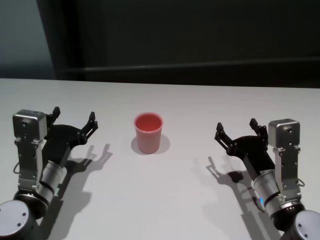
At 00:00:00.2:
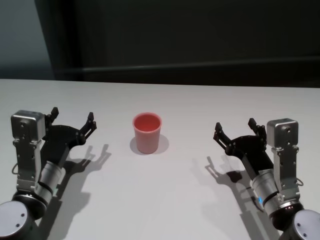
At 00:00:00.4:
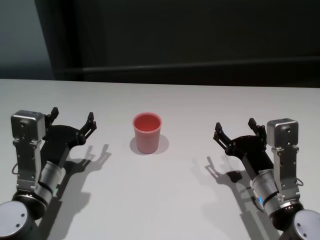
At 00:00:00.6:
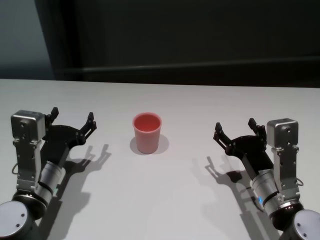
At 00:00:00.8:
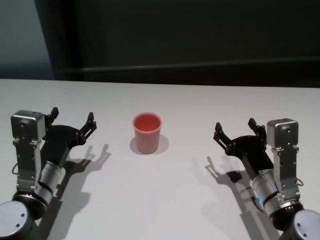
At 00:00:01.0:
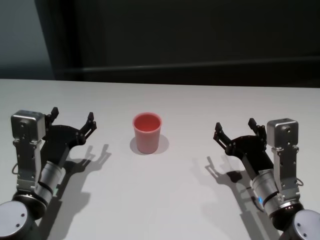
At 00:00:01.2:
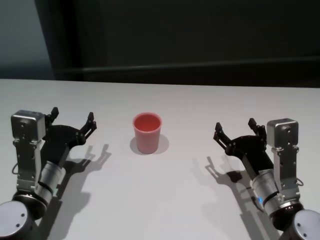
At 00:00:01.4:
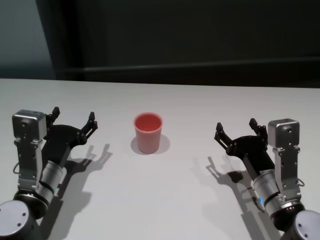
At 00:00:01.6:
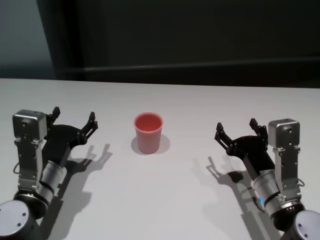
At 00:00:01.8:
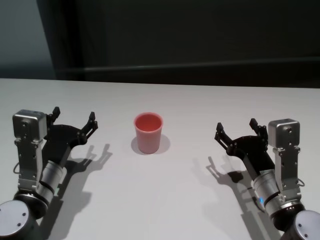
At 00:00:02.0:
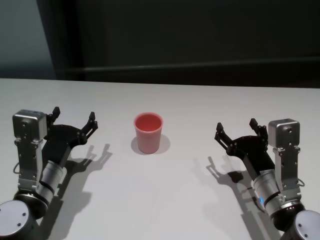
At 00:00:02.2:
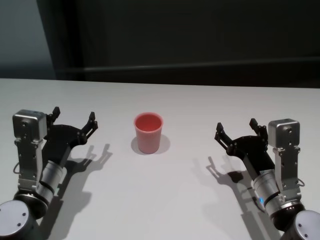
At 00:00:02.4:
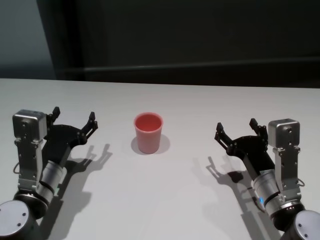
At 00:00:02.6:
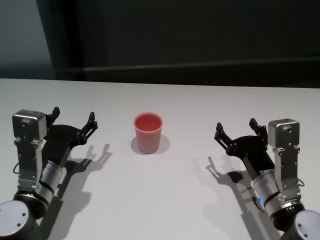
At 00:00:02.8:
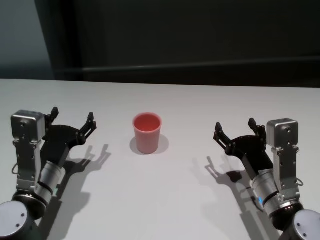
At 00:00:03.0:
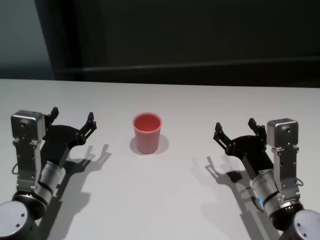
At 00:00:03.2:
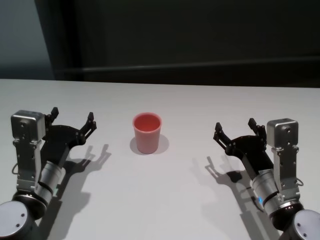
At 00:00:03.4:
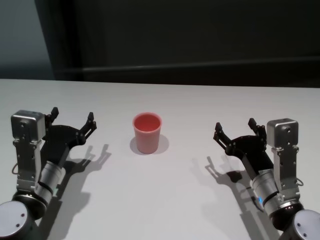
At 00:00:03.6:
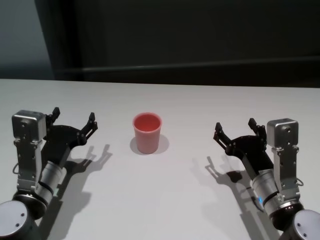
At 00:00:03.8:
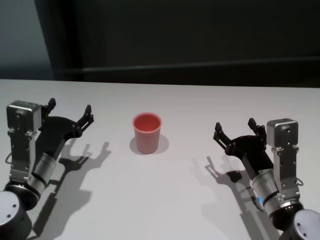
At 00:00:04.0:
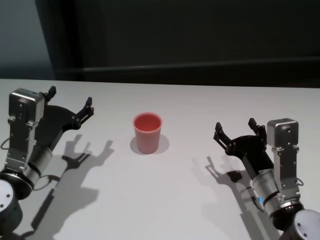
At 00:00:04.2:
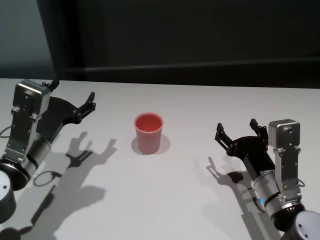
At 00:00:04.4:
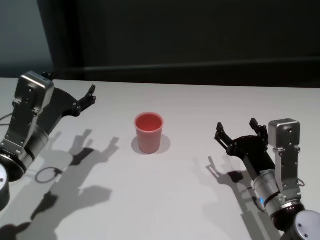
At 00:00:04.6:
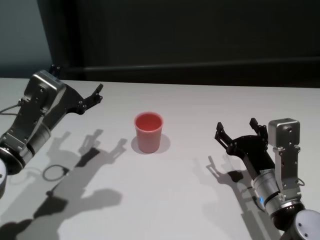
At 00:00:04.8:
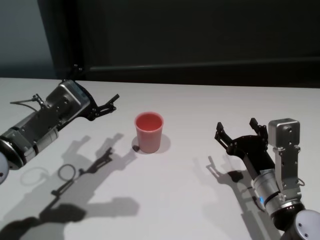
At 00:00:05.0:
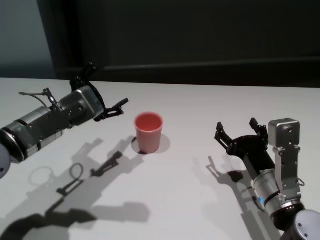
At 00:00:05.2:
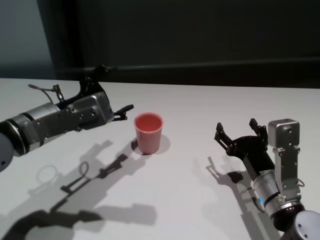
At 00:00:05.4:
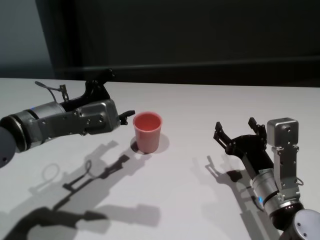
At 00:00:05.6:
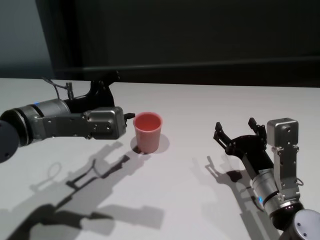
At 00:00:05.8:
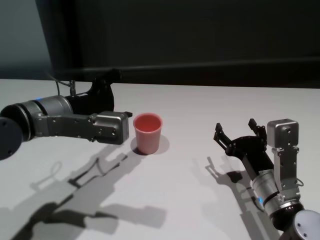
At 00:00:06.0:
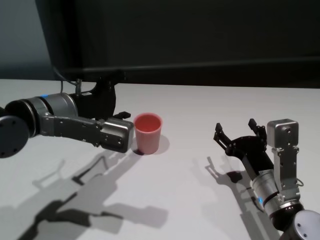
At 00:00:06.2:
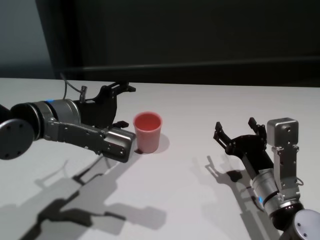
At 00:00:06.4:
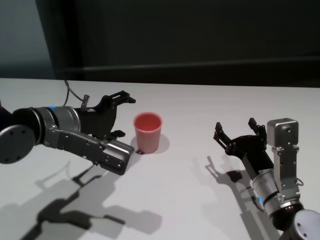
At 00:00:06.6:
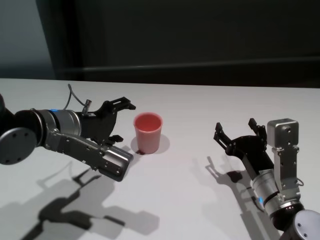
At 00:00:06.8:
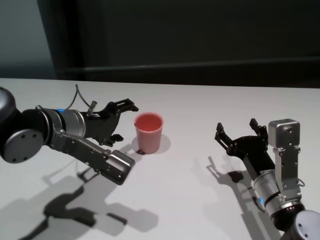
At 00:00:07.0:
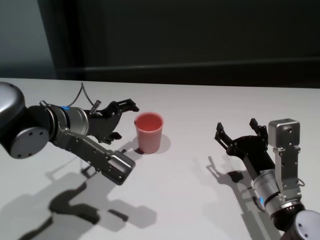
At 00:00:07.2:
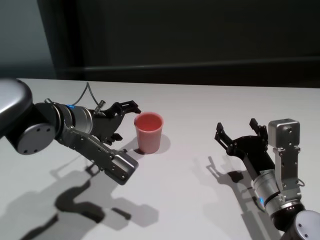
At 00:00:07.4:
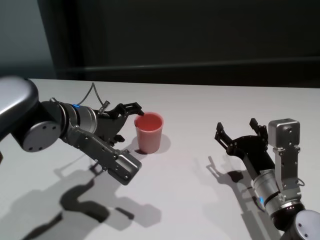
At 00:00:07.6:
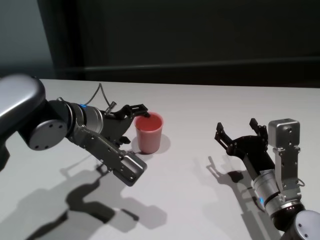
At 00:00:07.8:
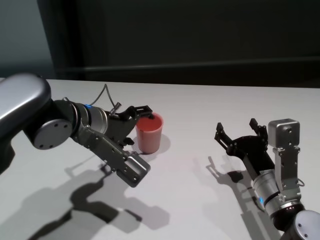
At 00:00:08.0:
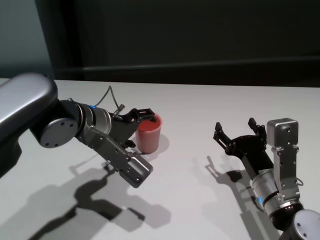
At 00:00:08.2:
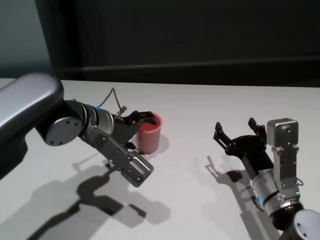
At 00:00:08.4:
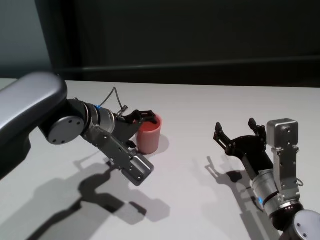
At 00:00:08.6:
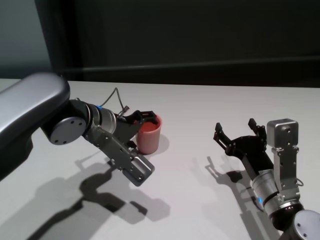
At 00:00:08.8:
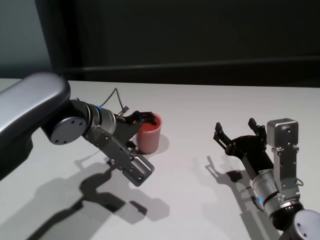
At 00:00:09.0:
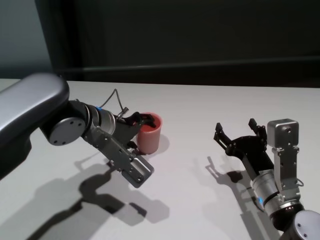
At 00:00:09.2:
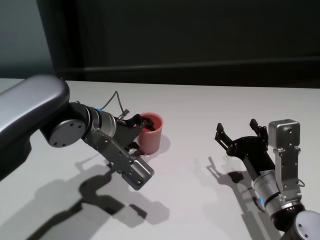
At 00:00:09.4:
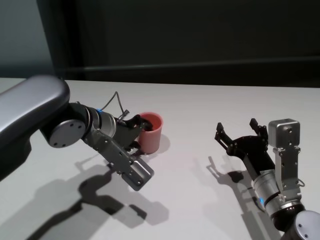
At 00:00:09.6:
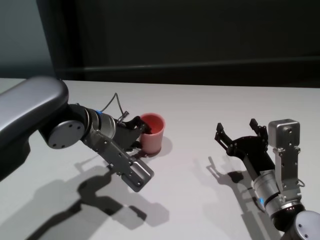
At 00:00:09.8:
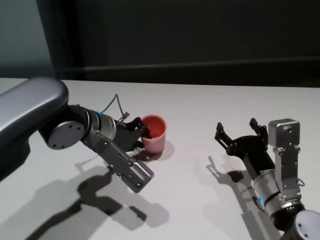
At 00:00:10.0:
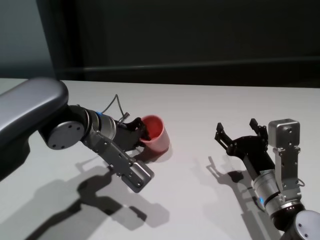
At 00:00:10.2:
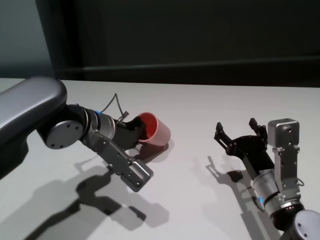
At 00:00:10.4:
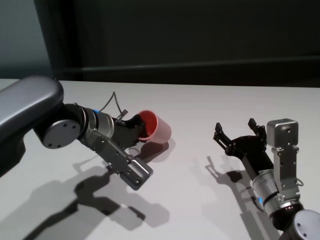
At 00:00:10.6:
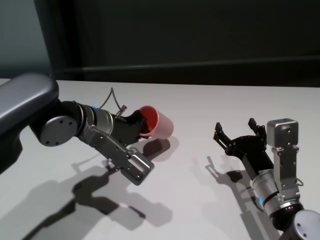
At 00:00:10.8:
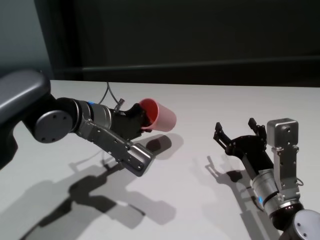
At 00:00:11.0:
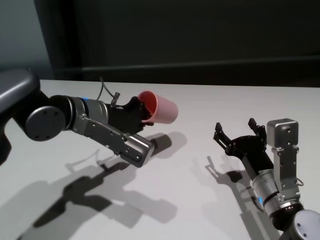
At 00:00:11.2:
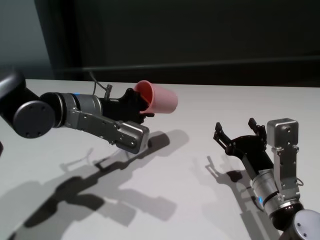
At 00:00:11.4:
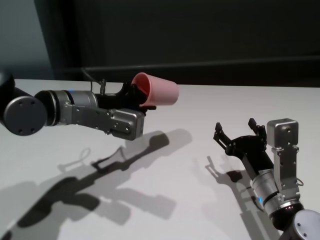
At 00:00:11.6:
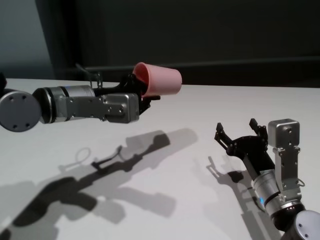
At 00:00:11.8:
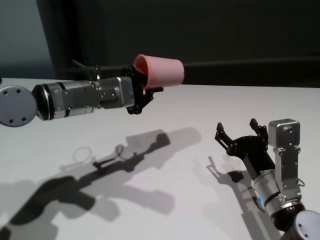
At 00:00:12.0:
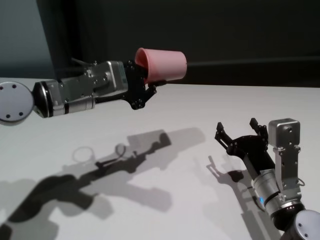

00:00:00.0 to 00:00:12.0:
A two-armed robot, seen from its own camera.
Task of the whole recording: On the white table pick up the cup with one hand and transfer it to the other hand before turning it over.
Step, 00:00:00.0 to 00:00:09.8: Grasp the cup with left gripper.

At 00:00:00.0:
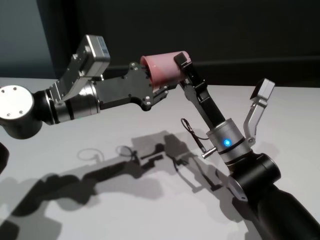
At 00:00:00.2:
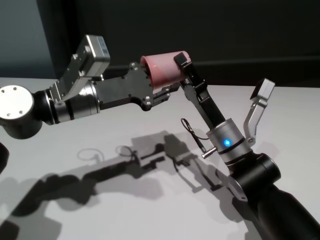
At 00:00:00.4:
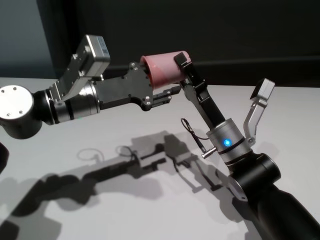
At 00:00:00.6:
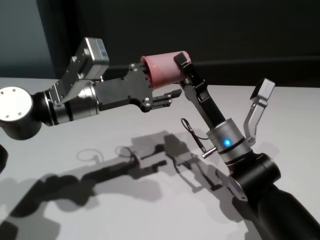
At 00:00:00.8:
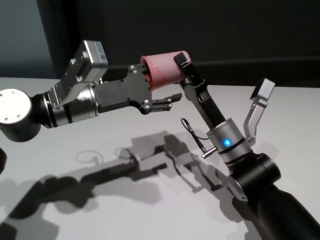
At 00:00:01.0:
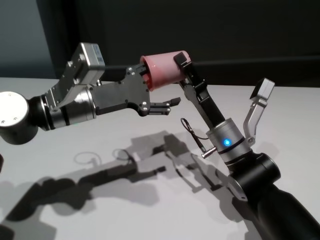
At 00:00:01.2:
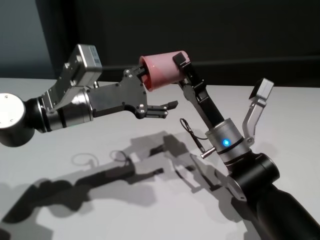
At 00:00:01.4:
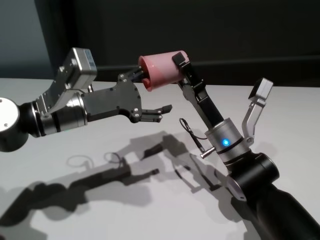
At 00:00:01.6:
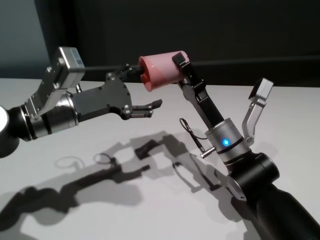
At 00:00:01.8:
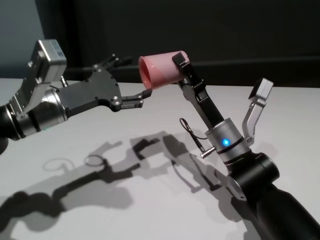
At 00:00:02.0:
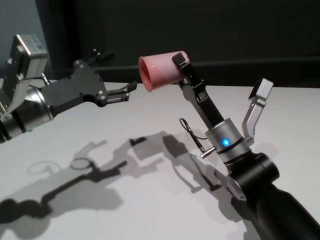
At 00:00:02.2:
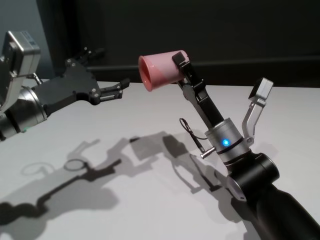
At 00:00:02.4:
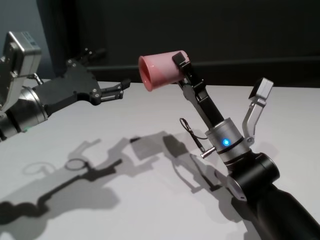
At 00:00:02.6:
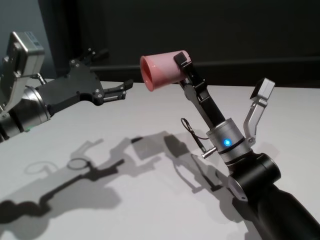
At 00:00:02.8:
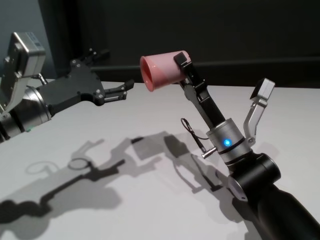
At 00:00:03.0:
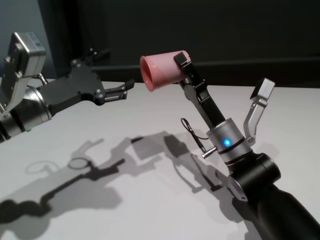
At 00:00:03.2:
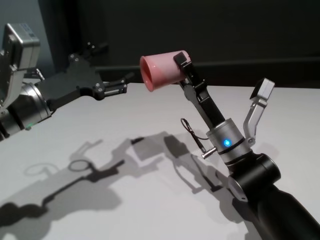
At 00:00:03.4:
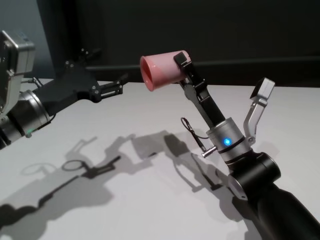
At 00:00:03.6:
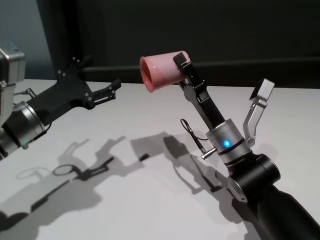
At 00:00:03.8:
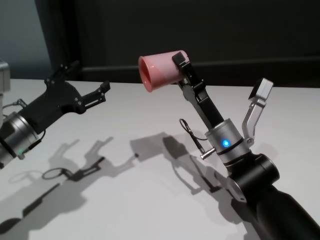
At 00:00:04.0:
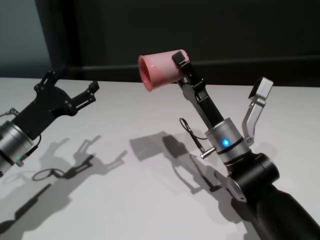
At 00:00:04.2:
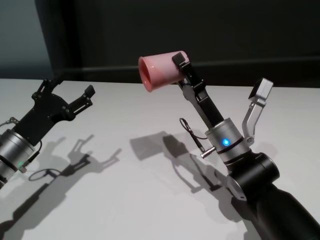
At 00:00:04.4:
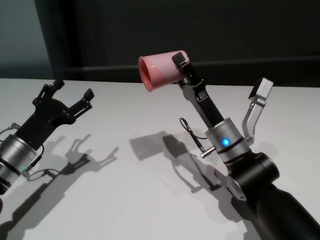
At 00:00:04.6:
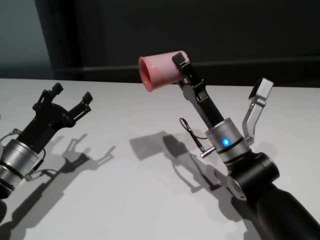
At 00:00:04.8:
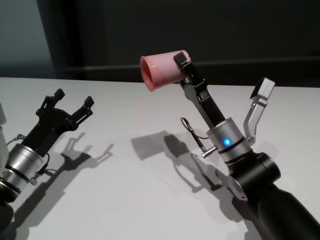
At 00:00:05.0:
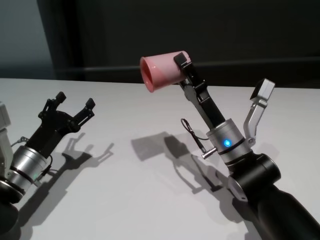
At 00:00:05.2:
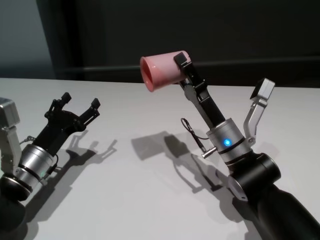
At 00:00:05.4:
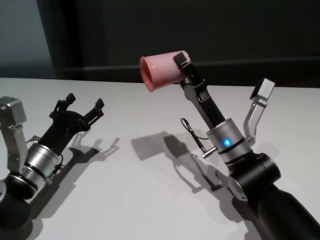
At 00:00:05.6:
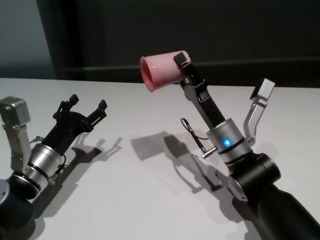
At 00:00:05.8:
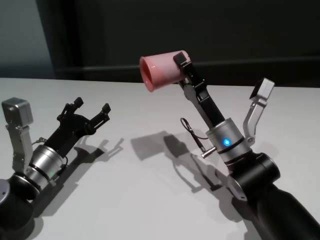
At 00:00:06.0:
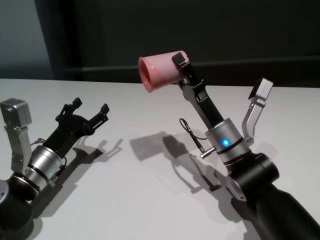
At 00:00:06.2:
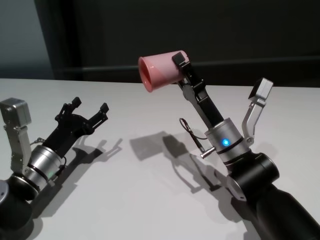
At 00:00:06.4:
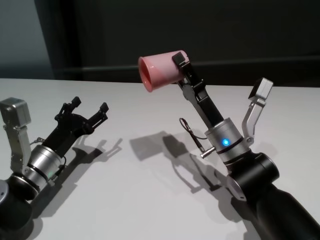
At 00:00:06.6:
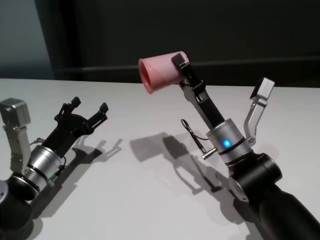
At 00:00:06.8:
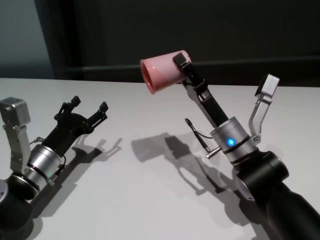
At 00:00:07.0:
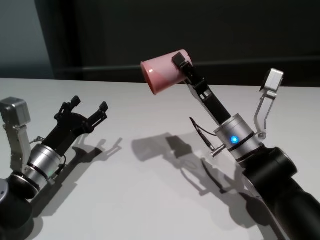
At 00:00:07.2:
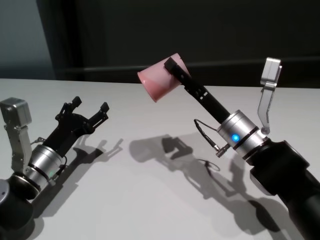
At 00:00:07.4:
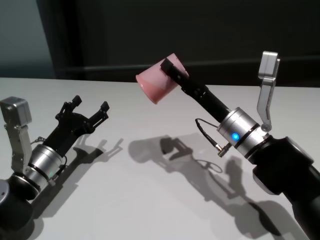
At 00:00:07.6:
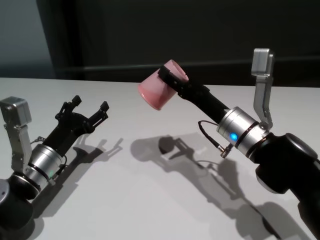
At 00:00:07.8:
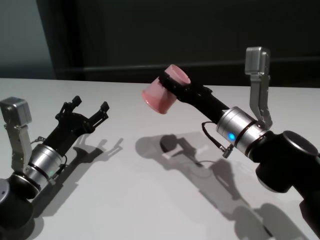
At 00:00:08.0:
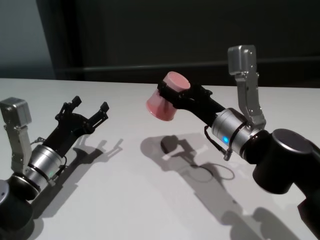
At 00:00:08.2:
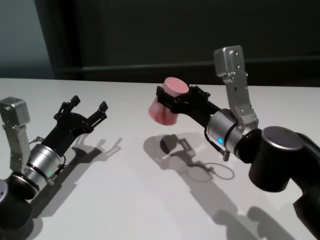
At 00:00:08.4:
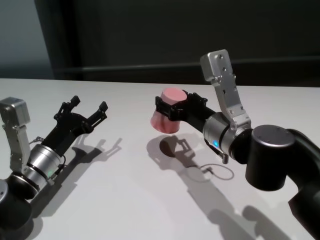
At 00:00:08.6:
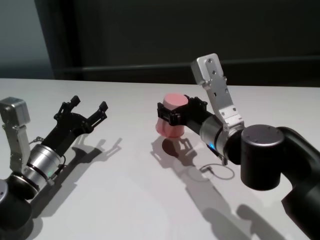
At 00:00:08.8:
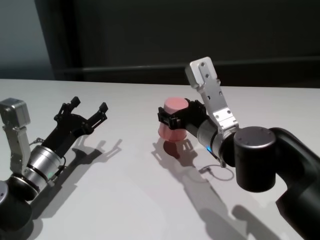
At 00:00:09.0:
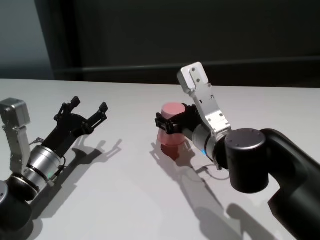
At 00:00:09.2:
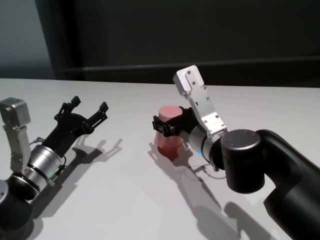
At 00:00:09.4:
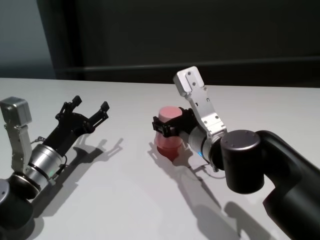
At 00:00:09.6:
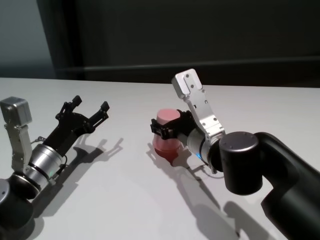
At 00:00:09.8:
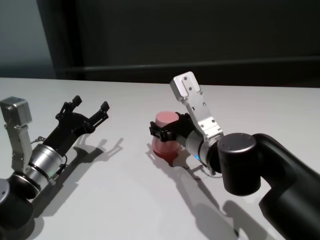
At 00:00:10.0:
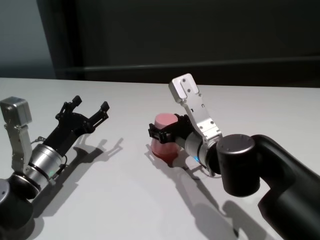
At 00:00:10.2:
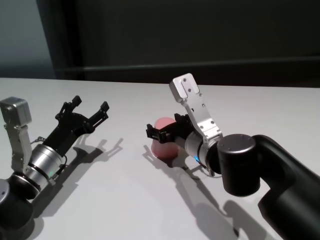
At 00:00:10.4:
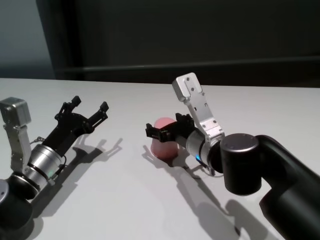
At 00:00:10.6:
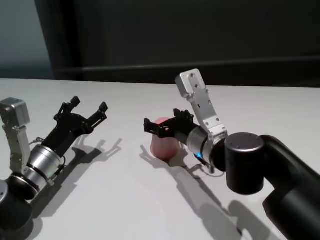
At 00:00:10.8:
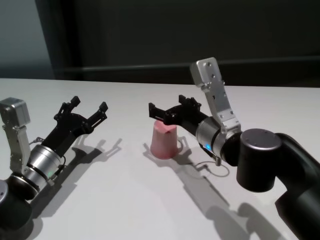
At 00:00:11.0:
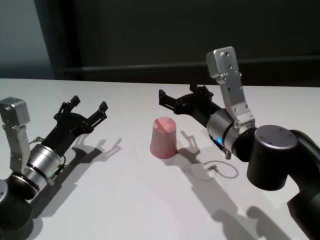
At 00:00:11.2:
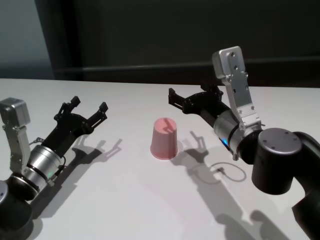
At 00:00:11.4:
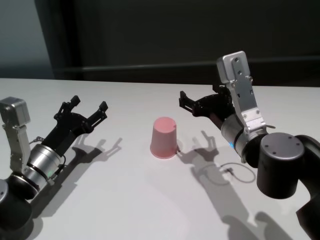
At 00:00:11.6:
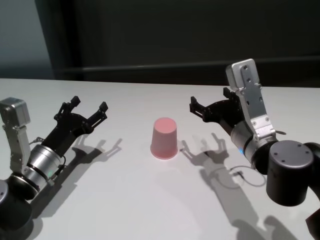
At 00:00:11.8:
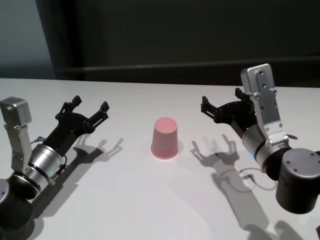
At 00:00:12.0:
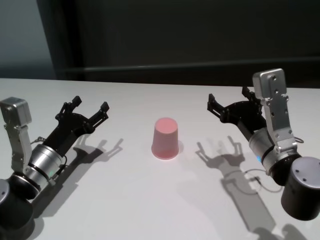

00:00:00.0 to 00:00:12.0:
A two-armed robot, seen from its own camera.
Task of the whole recording: On the white table pick up the cup with one hand and transfer it to the other hand before turning it over.
Step, 00:00:00.0 to 00:00:02.0: Pass the cup to the right gripper.
Step, 00:00:02.2 to 00:00:10.8: Place the cup on the table with right gripper.
